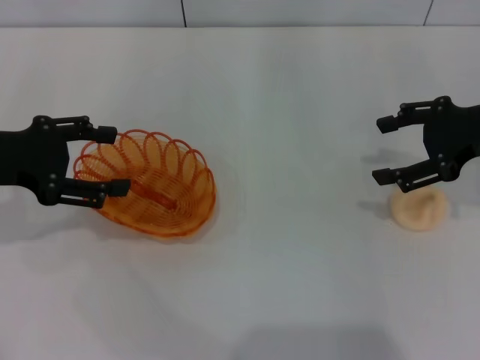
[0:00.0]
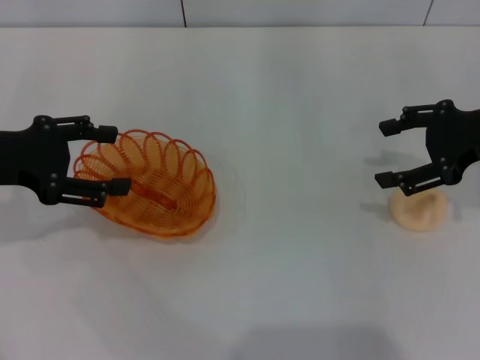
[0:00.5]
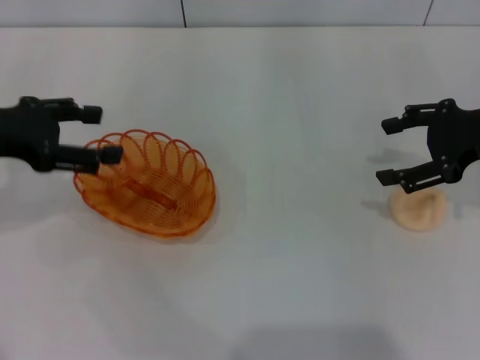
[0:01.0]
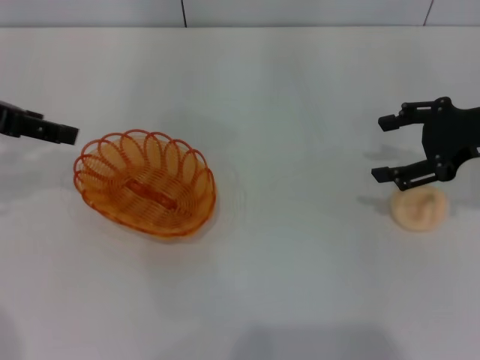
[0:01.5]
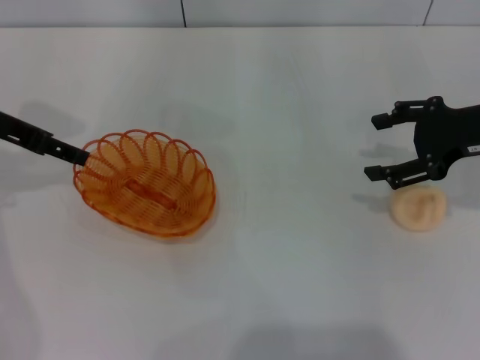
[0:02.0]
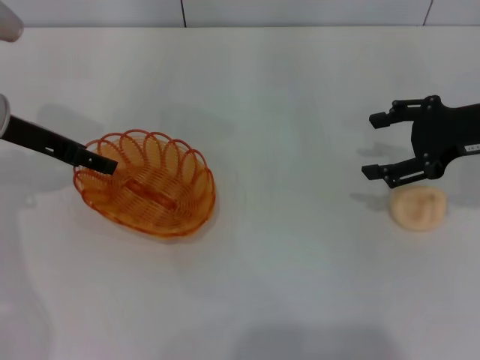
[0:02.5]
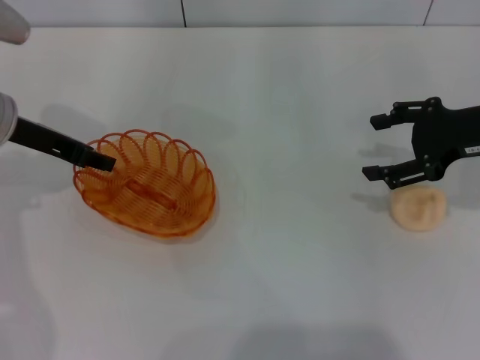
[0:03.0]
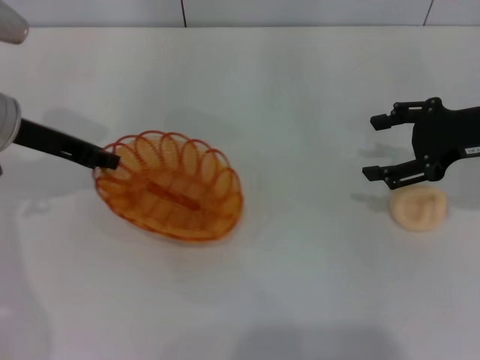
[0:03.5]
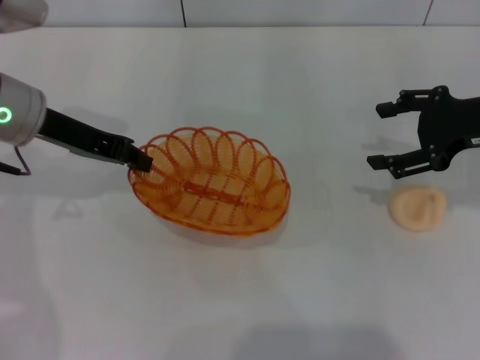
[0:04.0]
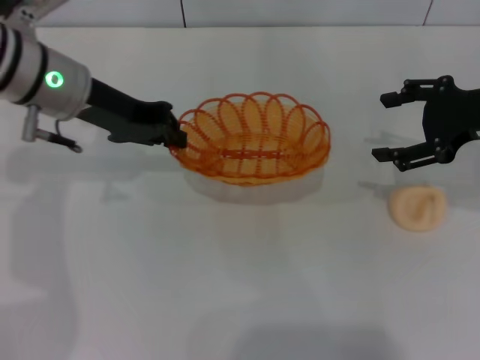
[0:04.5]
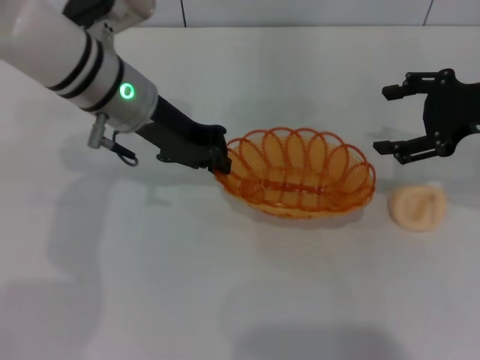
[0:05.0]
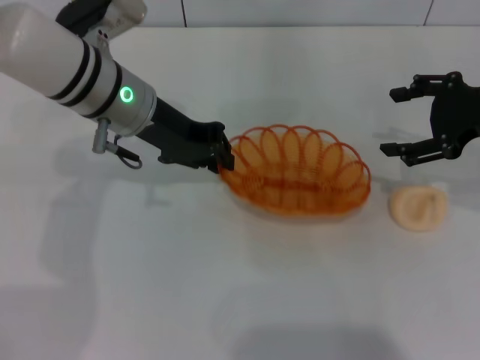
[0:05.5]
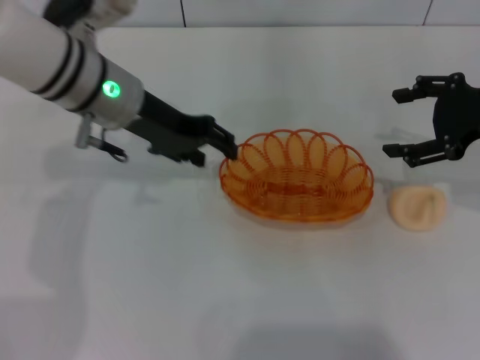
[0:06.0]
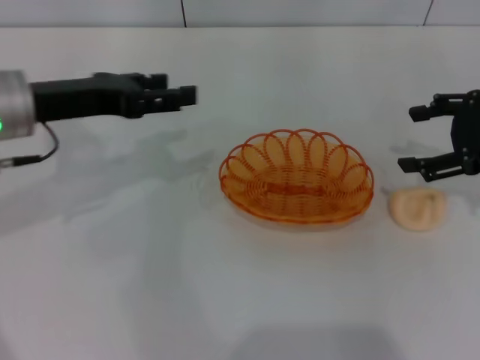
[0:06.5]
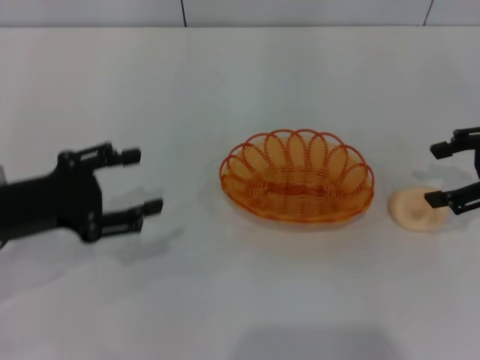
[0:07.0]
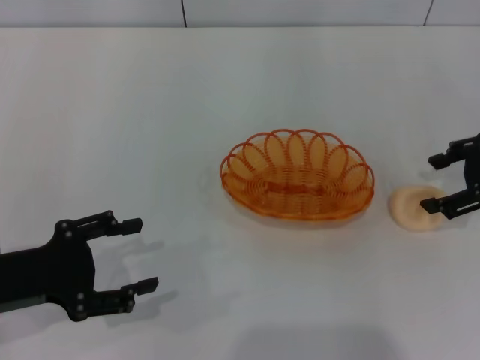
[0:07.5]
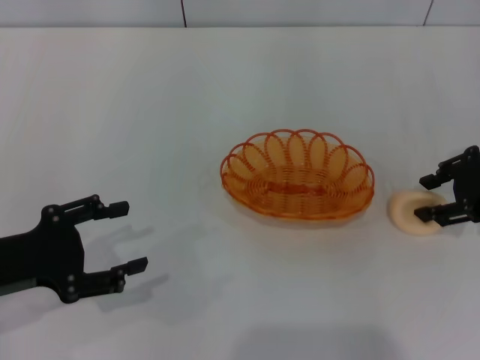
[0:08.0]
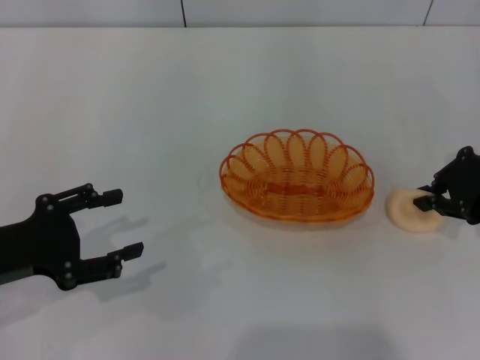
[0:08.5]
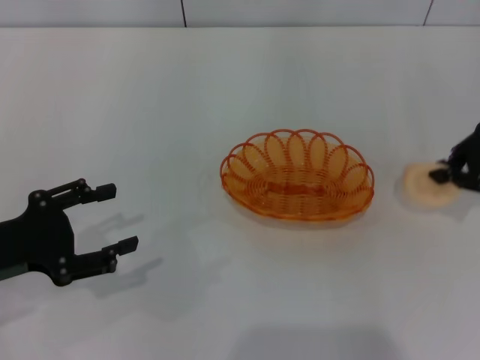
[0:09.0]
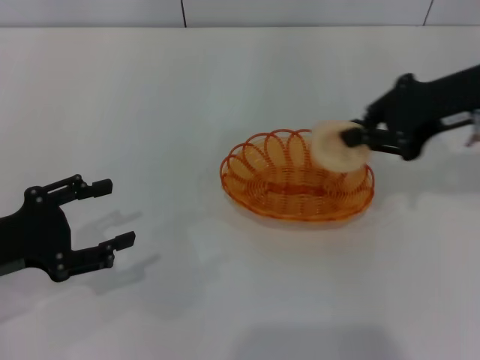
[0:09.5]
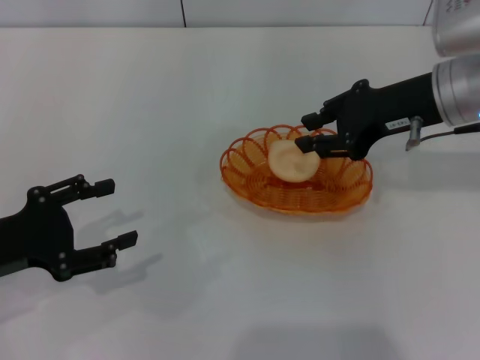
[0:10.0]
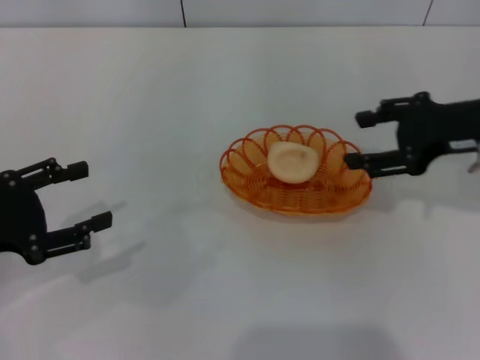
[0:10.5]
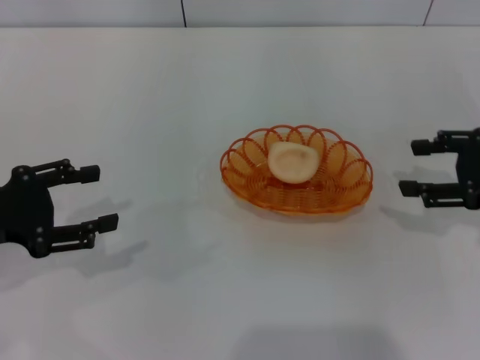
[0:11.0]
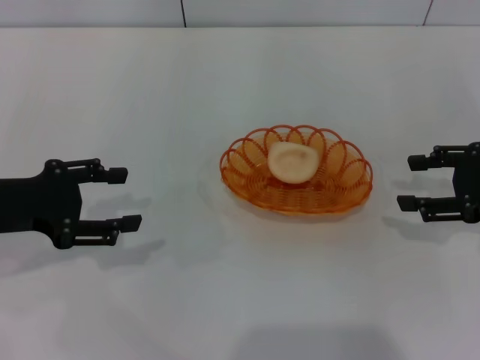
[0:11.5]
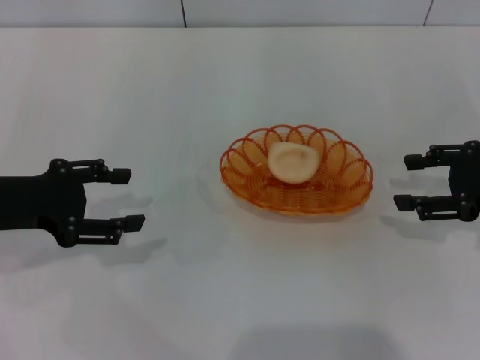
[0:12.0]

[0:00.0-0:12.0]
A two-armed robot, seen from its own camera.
Step, 0:00.0 to 0:04.0: Pick up the basket with the left gripper.
Step, 0:04.5 to 0:06.0: Place the basket in the center of view with the left gripper.
Step, 0:06.5 to 0:09.0: Pick up the egg yolk pastry with the right gripper.
Step, 0:09.5 to 0:10.5: Place the egg yolk pastry into the basket with the right gripper.
0:00.0 to 0:02.0: The left gripper shifts approximately 5 cm forward.
0:02.0 to 0:04.0: The left gripper shifts approximately 5 cm to the right, and closes up.
0:04.0 to 0:06.0: The left gripper travels to the right by roughly 10 cm, and opens.
0:06.0 to 0:08.0: The left gripper travels backward and to the left by about 25 cm, and opens up.
0:08.0 to 0:10.0: The right gripper goes roughly 10 cm to the left, and closes up.
0:10.0 to 0:12.0: The right gripper goes approximately 15 cm to the right, downward and backward, and opens. Meanwhile the left gripper goes approximately 5 cm forward.

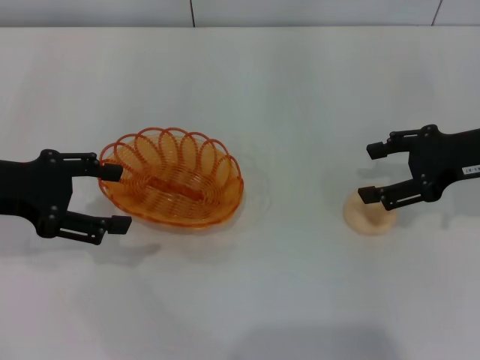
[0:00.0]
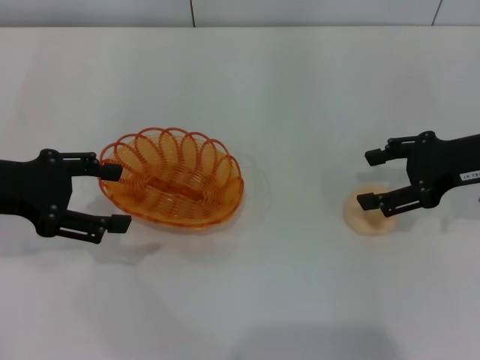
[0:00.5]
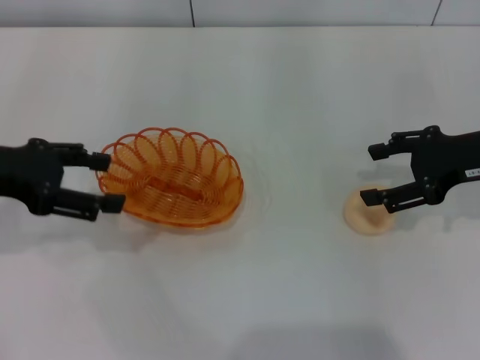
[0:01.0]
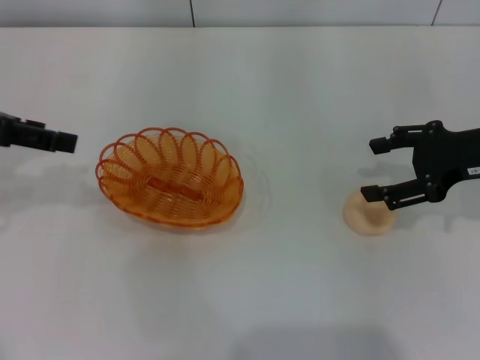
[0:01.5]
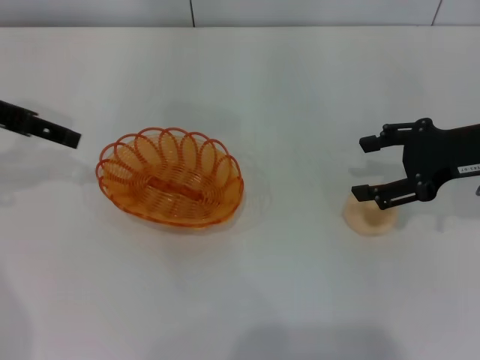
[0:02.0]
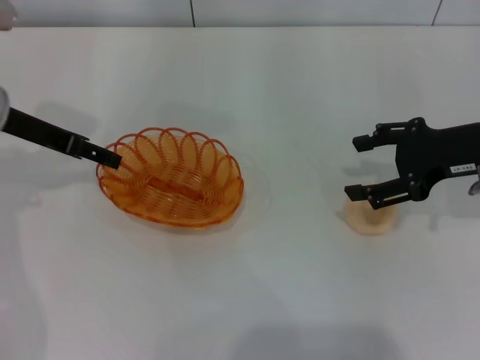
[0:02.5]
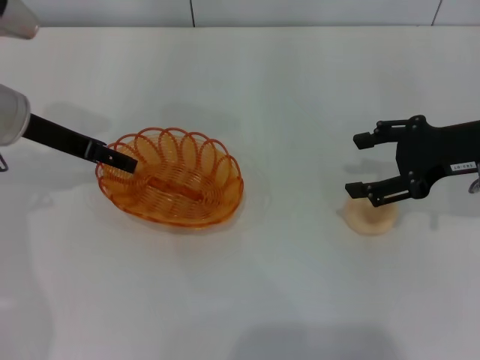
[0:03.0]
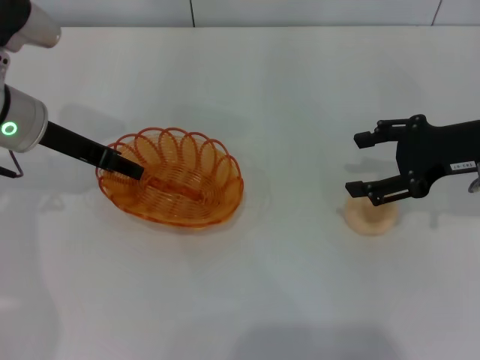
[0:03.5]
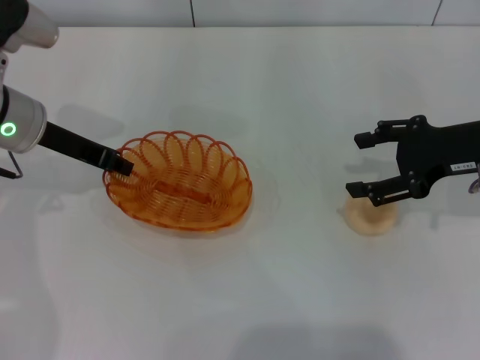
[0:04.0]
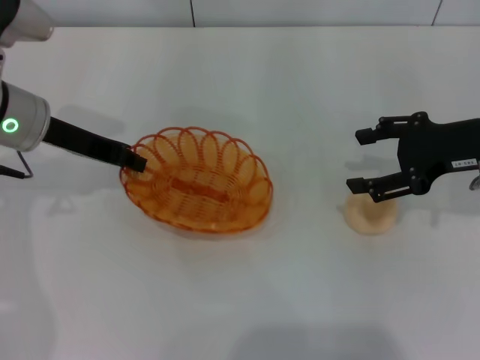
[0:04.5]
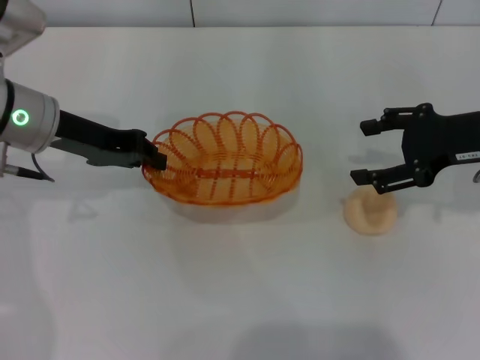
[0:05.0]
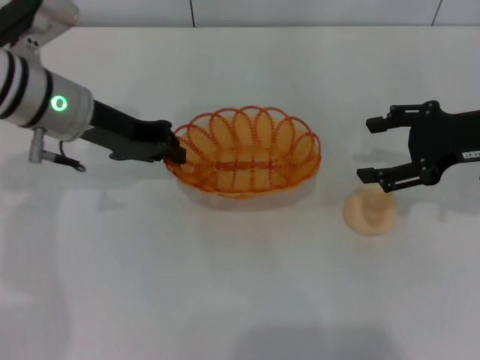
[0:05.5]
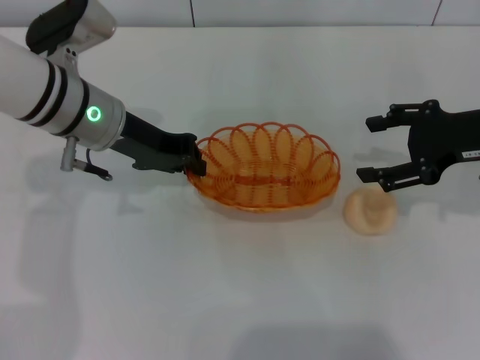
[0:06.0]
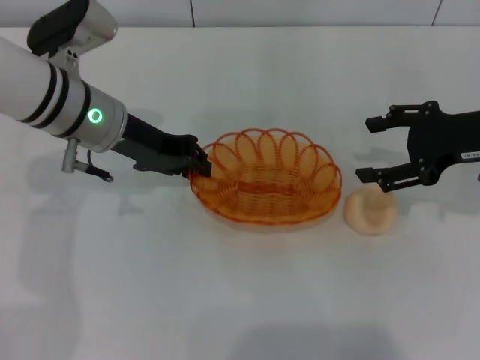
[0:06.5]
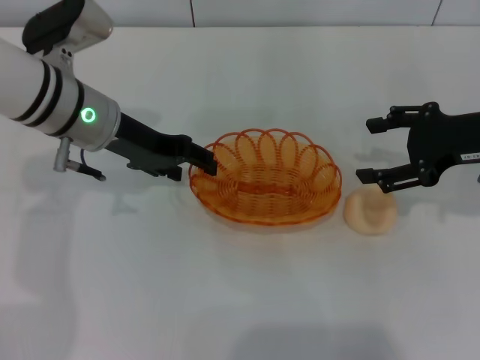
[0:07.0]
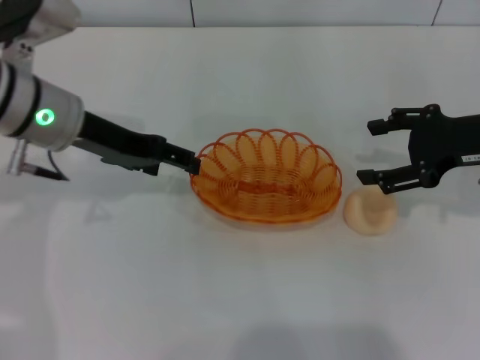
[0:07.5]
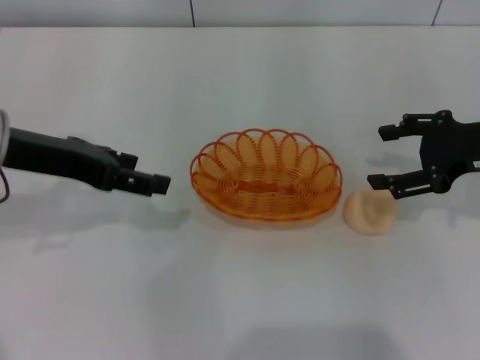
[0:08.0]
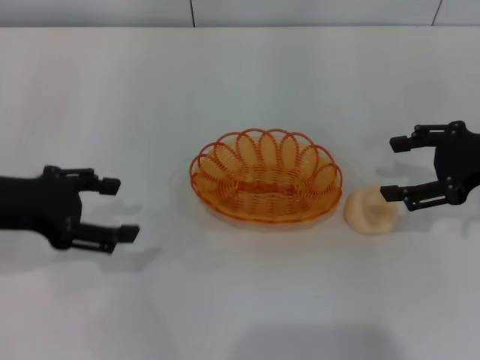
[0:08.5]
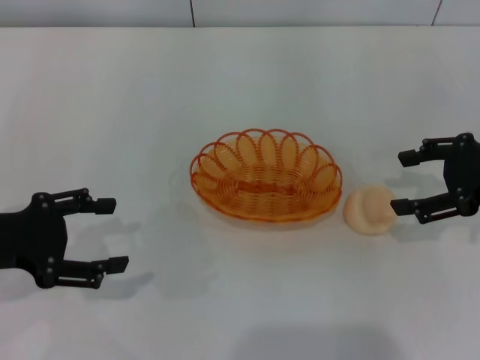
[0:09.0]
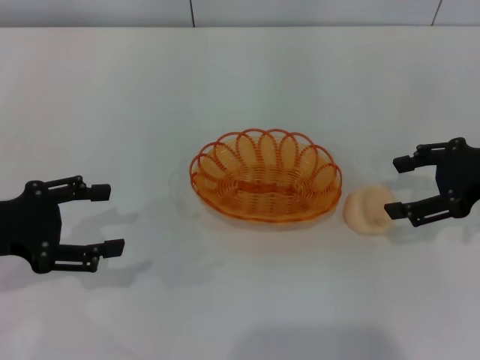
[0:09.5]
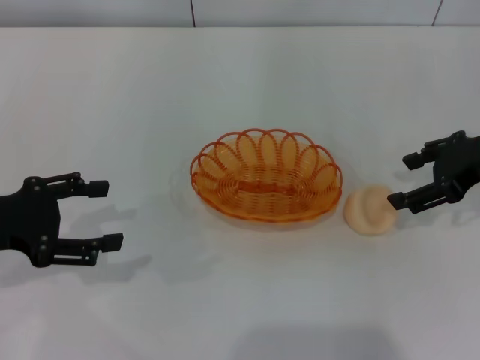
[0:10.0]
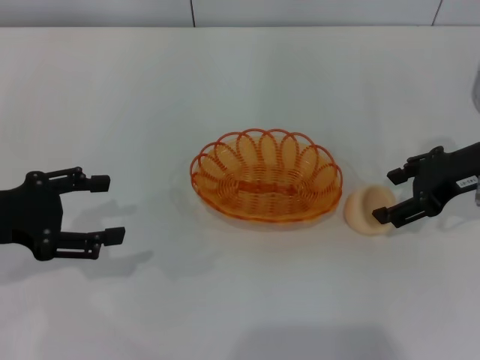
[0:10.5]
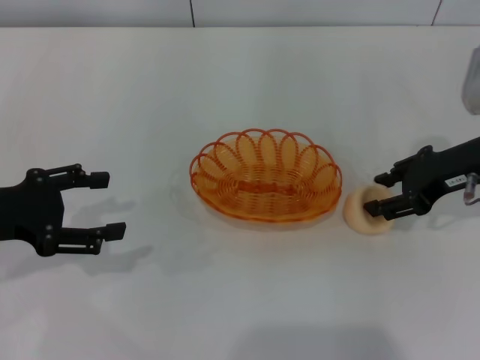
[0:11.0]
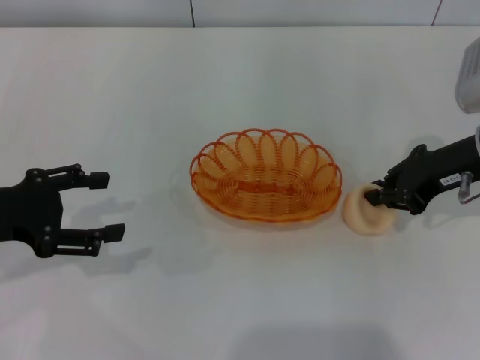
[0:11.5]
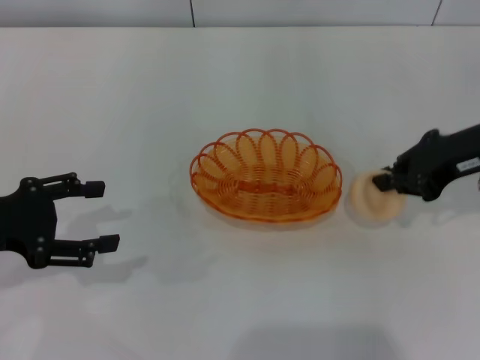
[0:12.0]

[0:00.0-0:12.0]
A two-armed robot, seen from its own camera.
Step, 0:00.0 to 0:04.5: Pick up the basket with the left gripper.
Step, 0:05.0 to 0:07.5: Place the basket in the center of view with the left gripper.
0:00.0 to 0:02.0: The left gripper moves forward and upward, roughly 10 cm.
0:02.0 to 0:04.0: The left gripper heads downward and to the right, covering approximately 10 cm, and closes its fingers.
0:04.0 to 0:06.0: The left gripper moves to the right, some 5 cm.
0:06.0 to 0:08.0: The left gripper is displaced to the left and backward by approximately 10 cm, and opens up.
0:08.0 to 0:10.0: The left gripper moves to the left, downward and backward, roughly 10 cm.
0:10.0 to 0:12.0: The right gripper closes.

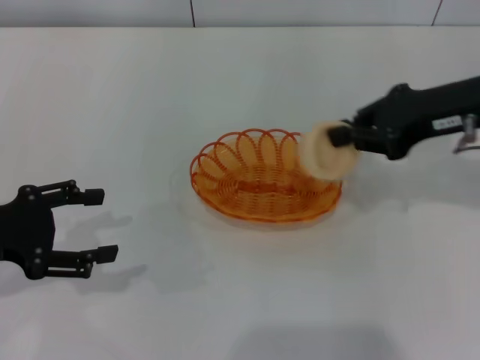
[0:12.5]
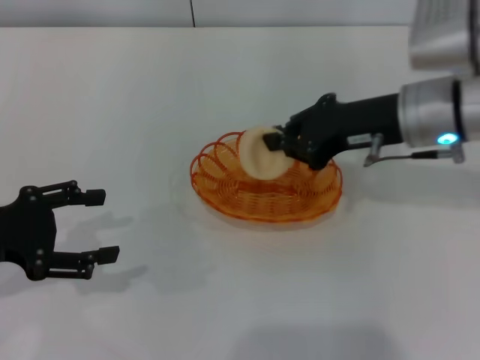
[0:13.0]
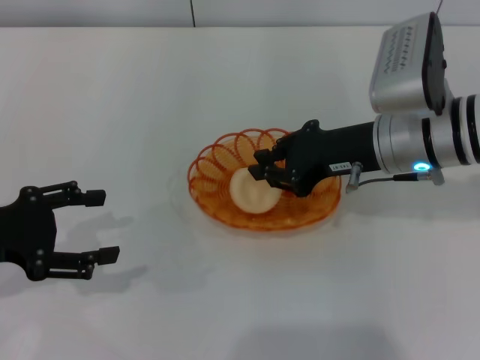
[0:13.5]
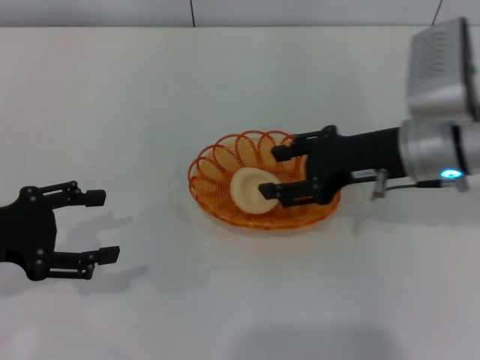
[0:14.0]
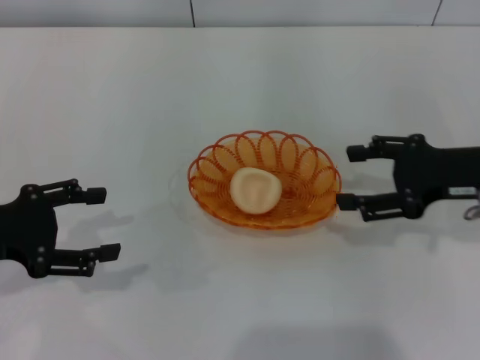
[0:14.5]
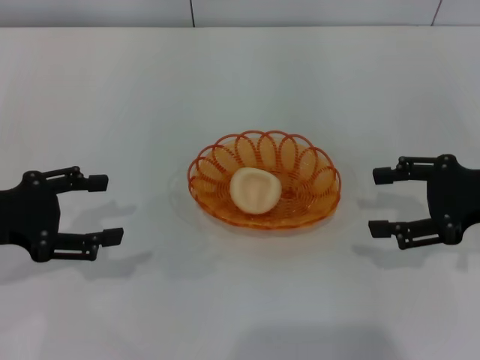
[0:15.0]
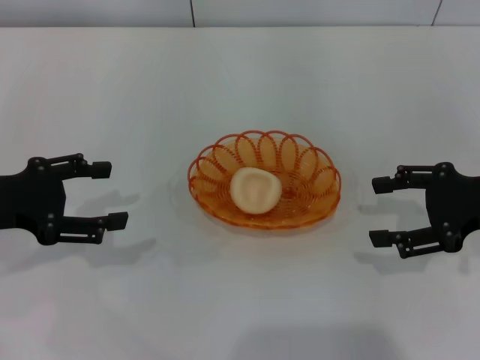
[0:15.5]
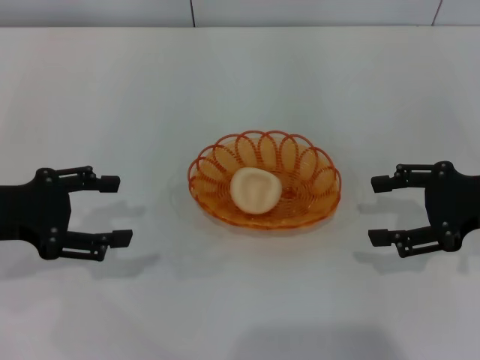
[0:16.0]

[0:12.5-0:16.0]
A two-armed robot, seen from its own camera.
Step, 0:12.5 to 0:14.0: Place the egg yolk pastry into the basket with the right gripper.
0:12.5 to 0:14.5: The right gripper shifts some 5 cm downward, goes to the left and returns, roughly 10 cm each way, and opens its fingers.
0:14.5 to 0:16.0: The grippers stay close to where they were, moving slightly.
